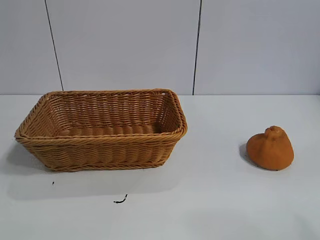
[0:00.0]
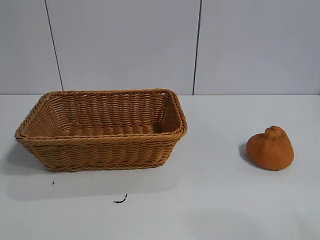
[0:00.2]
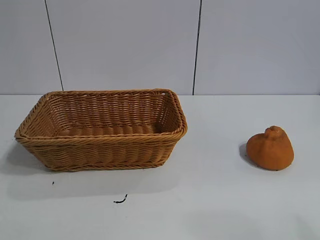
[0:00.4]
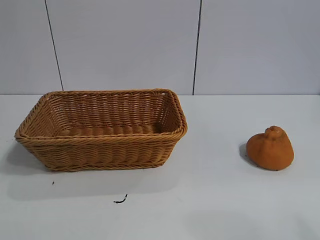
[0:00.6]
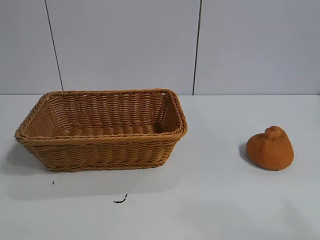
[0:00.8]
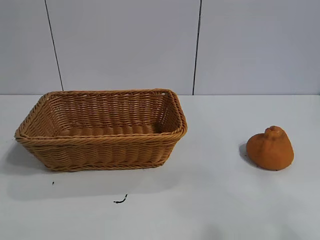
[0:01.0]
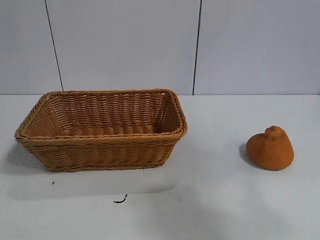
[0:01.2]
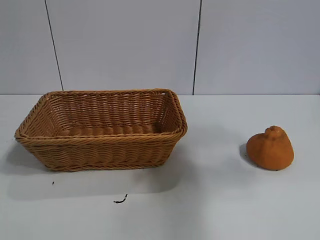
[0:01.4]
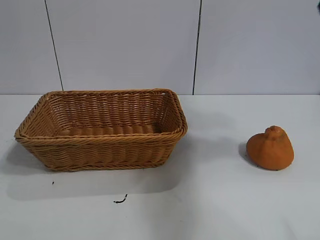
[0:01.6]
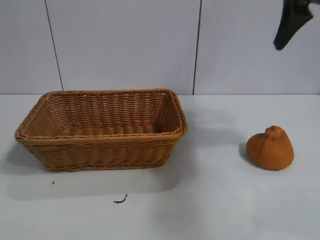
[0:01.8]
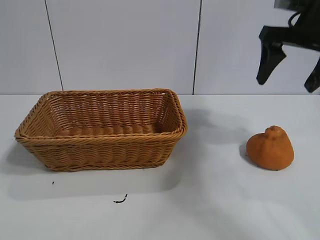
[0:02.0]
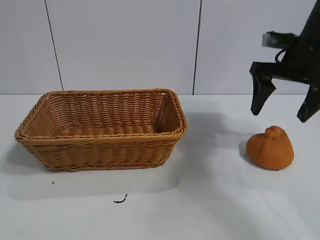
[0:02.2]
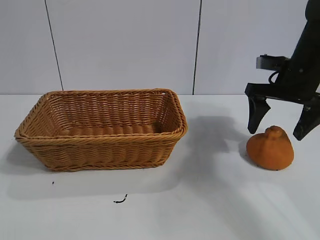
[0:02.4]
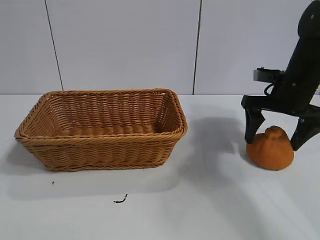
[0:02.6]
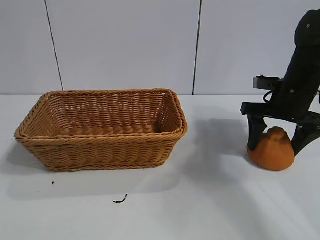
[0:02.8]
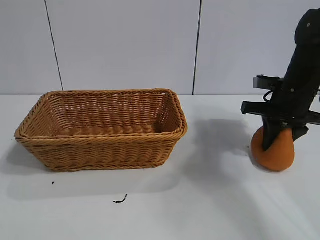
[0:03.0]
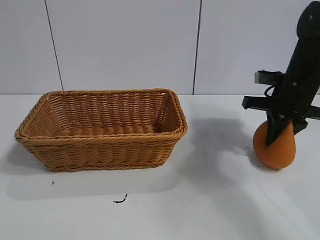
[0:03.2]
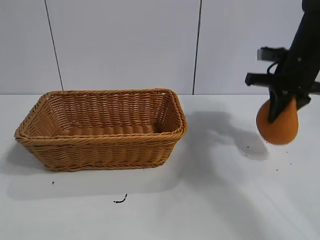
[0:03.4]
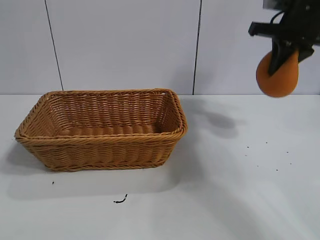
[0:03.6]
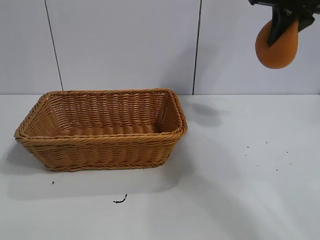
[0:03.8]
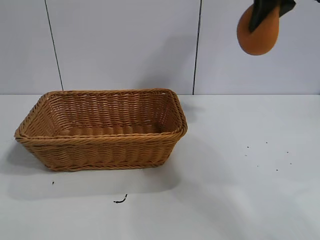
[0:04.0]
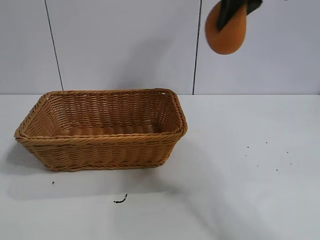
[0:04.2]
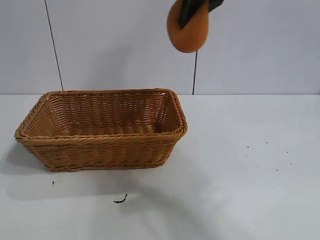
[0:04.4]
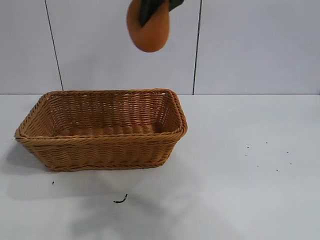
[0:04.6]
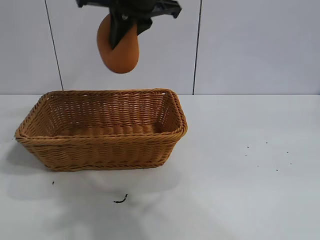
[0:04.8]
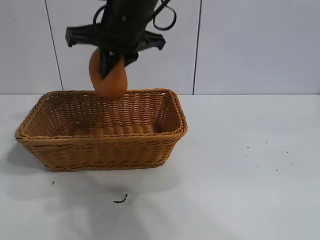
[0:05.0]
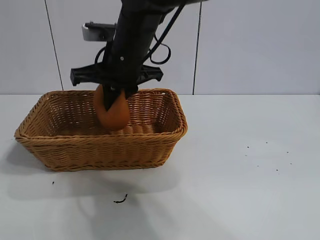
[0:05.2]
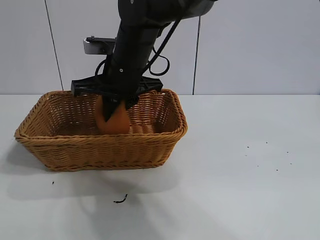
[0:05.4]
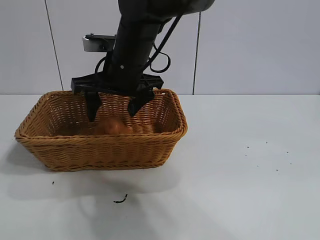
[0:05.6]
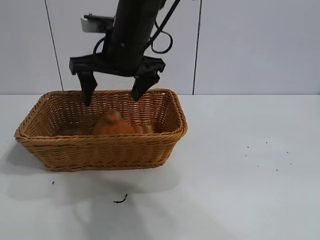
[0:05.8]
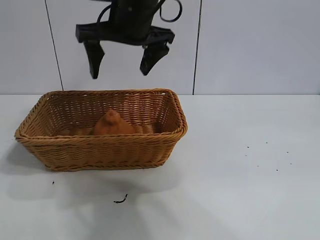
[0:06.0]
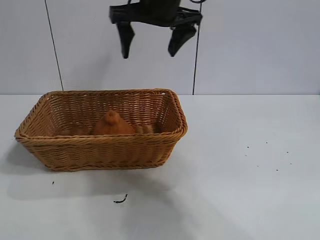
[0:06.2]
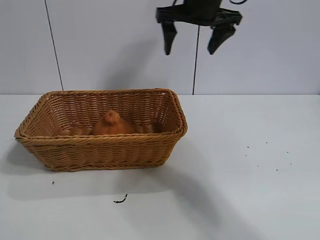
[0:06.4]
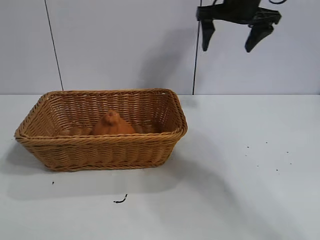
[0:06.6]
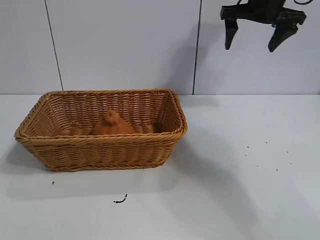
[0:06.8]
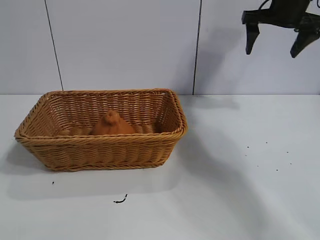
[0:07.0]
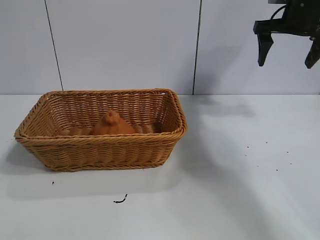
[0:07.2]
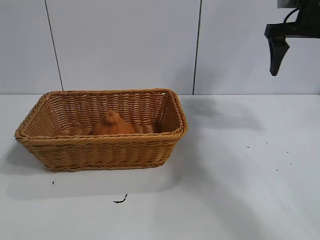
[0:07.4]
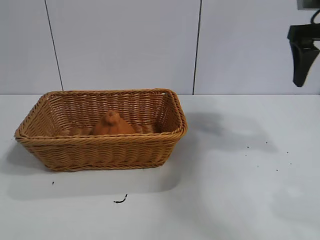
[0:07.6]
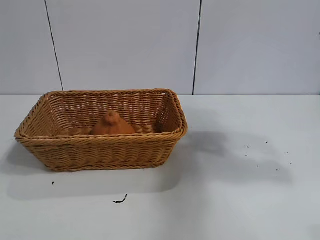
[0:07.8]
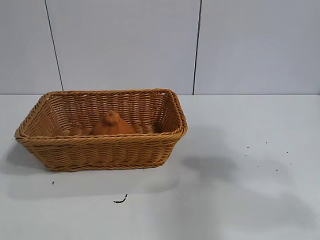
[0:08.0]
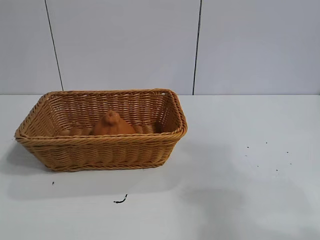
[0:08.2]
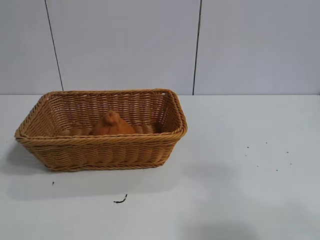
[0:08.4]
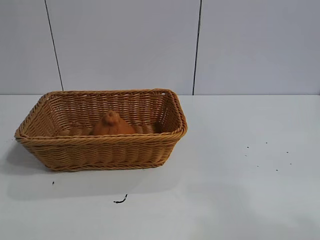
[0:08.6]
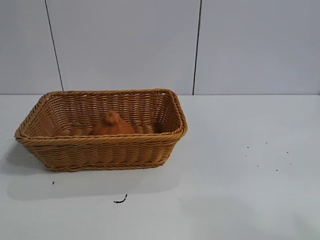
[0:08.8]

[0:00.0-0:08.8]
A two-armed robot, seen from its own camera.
Task of the whole recording: pick up the orange and put it into the basket.
Step, 0:00.8 to 0:03.0: Grasp the orange with right gripper.
Step, 0:03.2 to 0:05.6: Place the orange in the basket with right gripper.

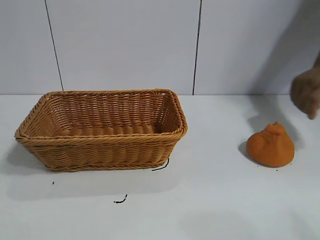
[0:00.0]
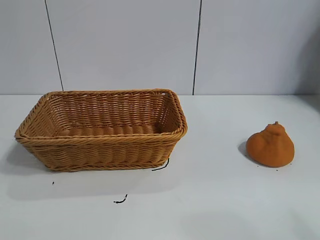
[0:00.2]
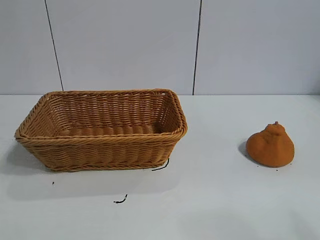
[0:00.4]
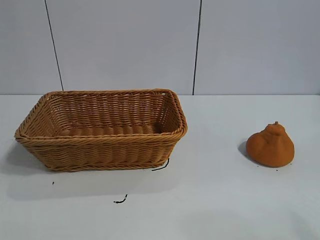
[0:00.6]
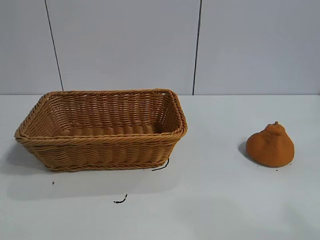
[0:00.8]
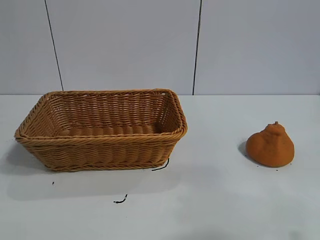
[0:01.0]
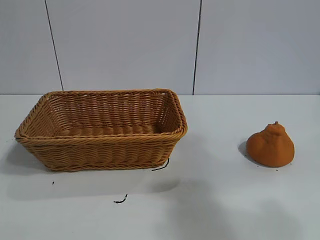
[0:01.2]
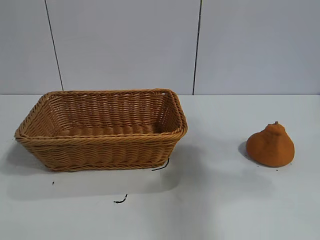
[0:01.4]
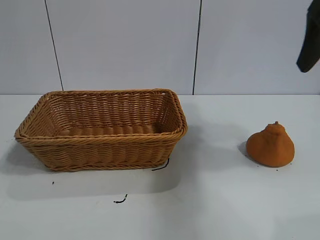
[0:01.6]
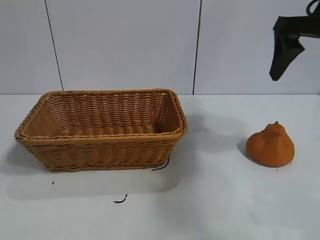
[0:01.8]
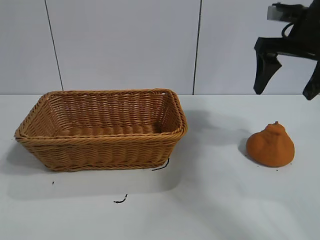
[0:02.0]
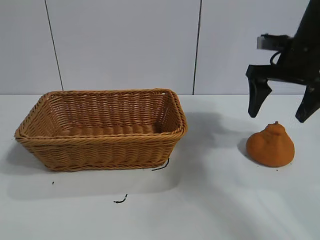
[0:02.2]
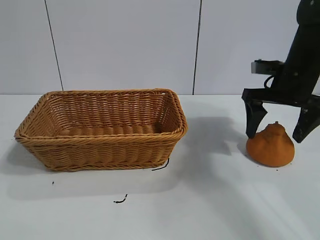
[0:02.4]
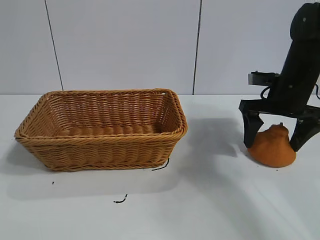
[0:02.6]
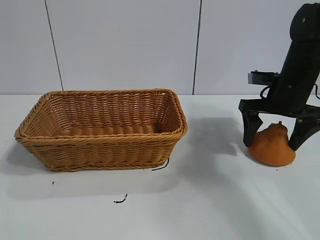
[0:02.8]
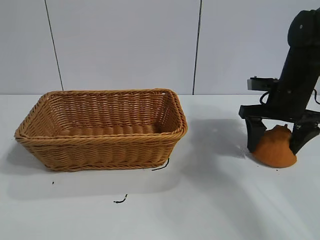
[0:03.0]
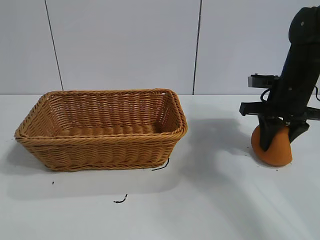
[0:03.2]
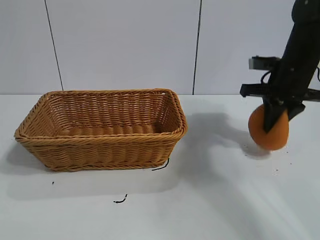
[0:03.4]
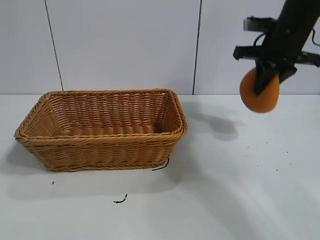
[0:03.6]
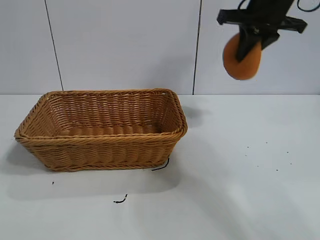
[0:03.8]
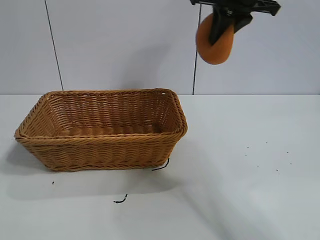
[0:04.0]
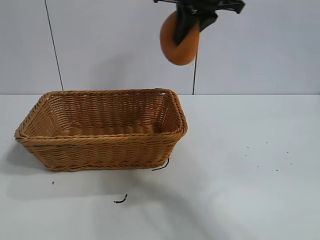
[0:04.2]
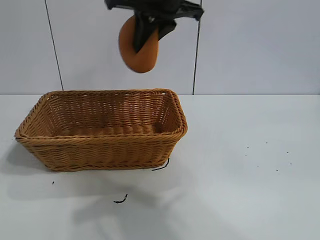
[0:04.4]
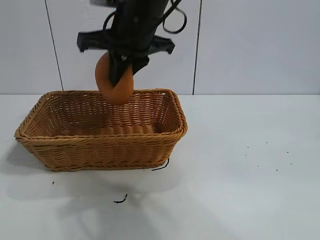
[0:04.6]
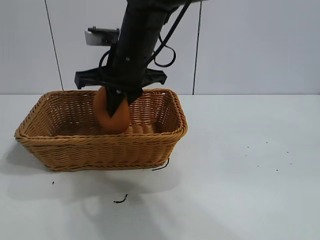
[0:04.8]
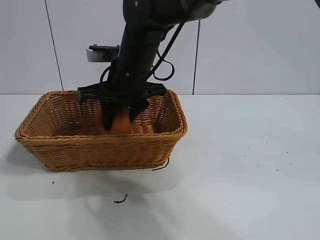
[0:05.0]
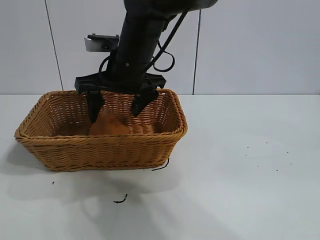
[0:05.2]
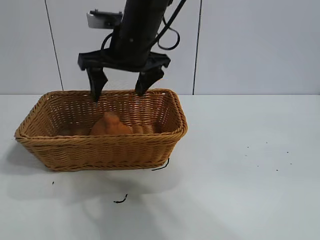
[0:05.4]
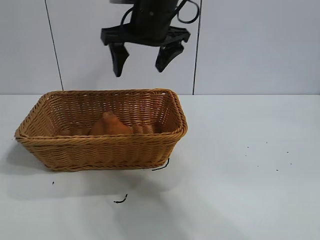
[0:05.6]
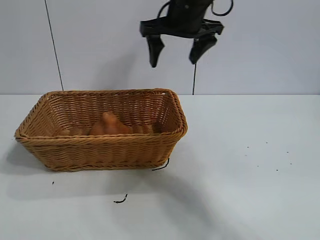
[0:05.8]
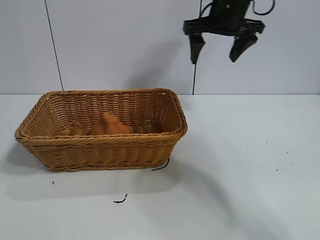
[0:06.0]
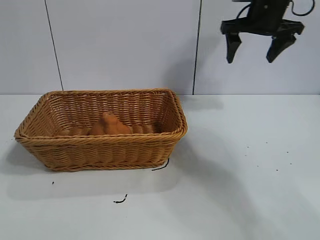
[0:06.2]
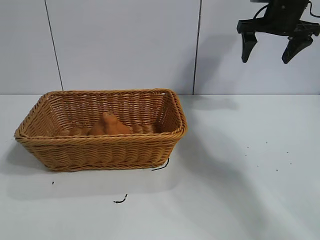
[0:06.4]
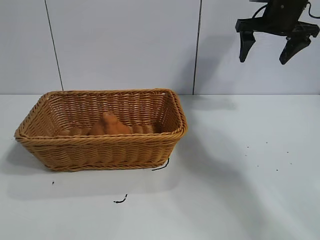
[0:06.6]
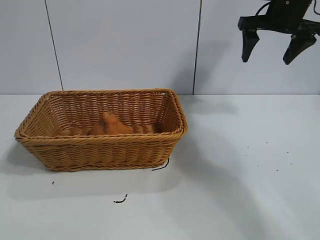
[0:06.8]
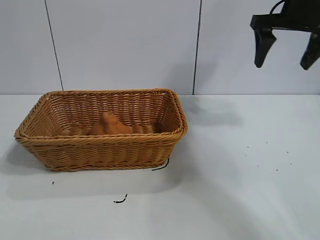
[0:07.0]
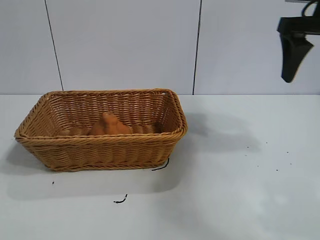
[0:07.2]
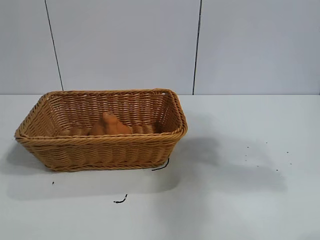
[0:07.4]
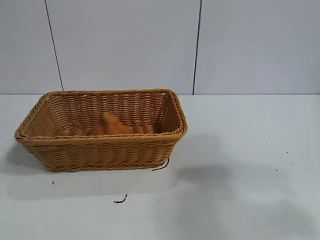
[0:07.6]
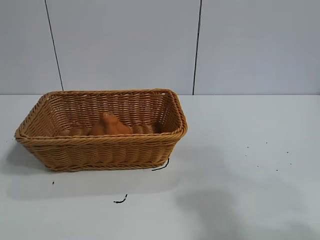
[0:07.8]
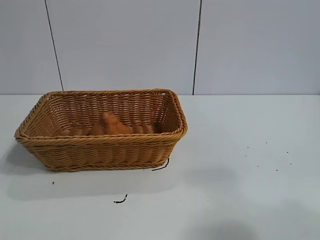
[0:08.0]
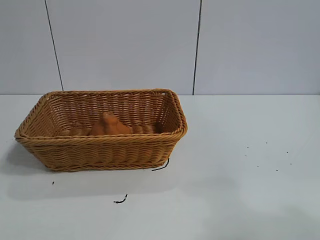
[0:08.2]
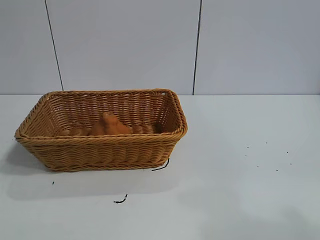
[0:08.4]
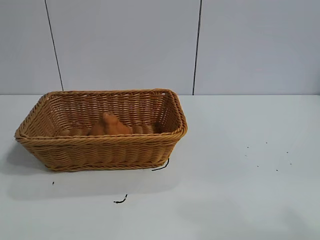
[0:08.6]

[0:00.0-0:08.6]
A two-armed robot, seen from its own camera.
Task of the whole recording: pick up the orange and put it into the basket.
Step, 0:00.8 to 0:03.2: Grasp the orange with right gripper.
Step, 0:03.4 to 0:05.2: Place the orange in the basket with right gripper.

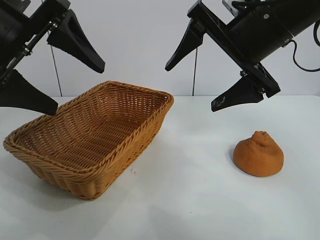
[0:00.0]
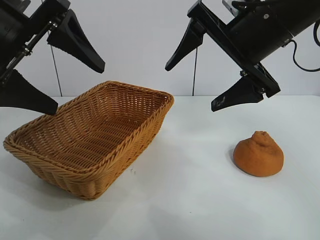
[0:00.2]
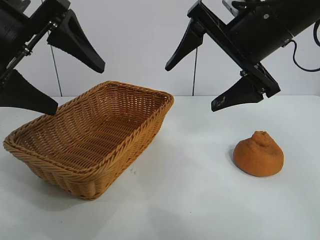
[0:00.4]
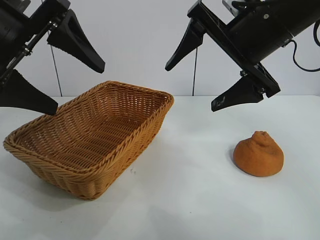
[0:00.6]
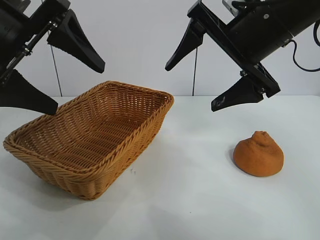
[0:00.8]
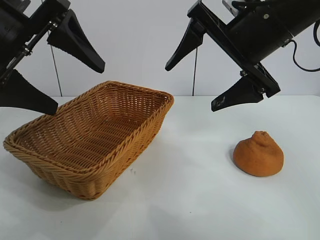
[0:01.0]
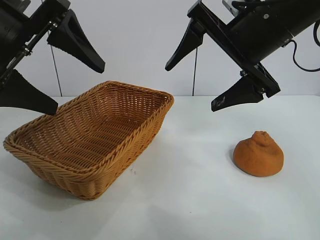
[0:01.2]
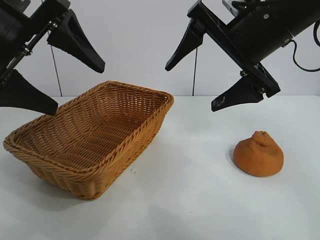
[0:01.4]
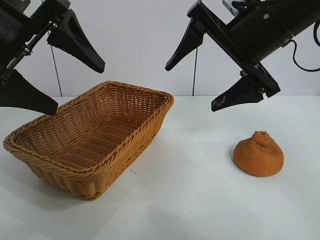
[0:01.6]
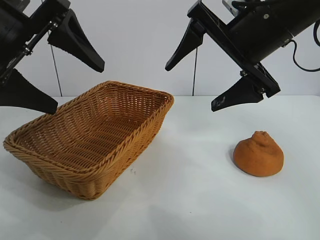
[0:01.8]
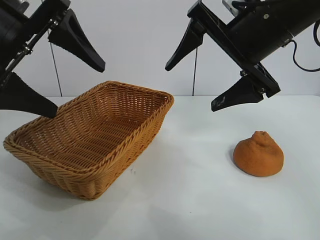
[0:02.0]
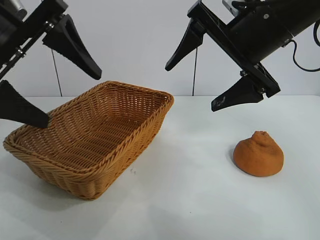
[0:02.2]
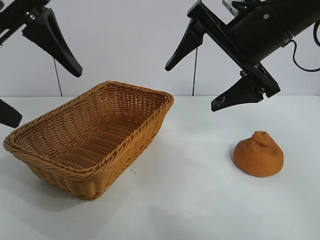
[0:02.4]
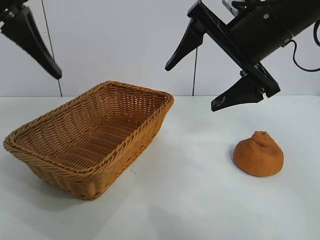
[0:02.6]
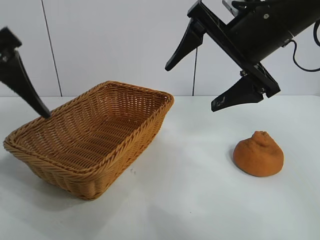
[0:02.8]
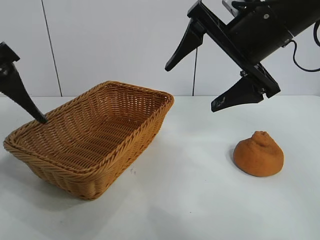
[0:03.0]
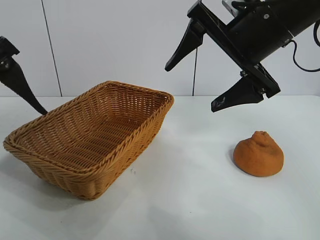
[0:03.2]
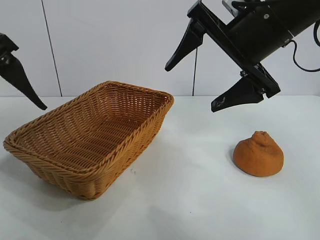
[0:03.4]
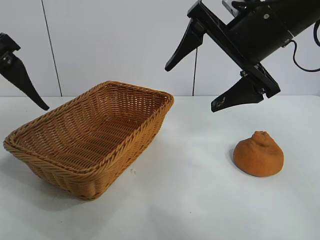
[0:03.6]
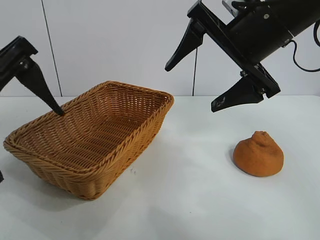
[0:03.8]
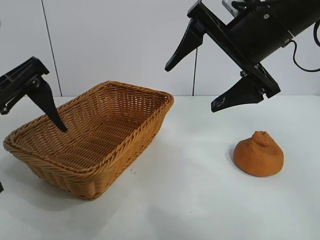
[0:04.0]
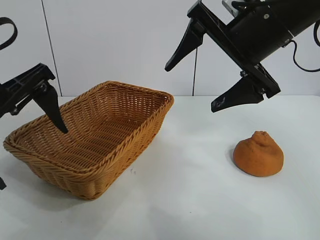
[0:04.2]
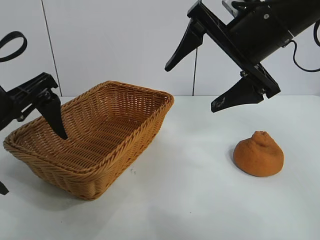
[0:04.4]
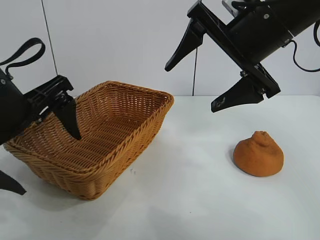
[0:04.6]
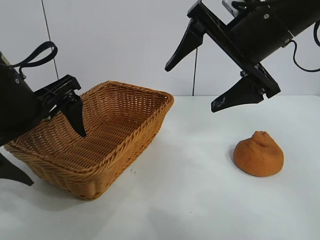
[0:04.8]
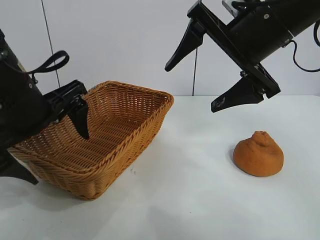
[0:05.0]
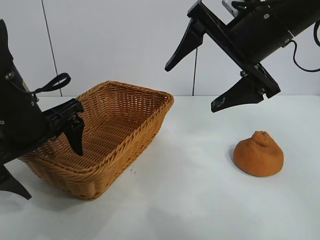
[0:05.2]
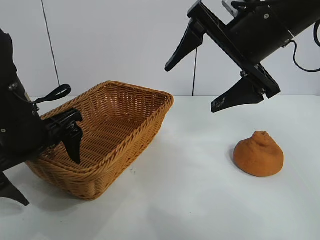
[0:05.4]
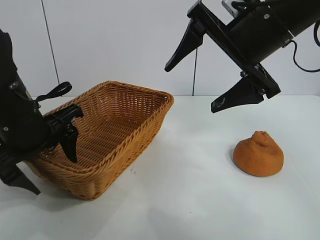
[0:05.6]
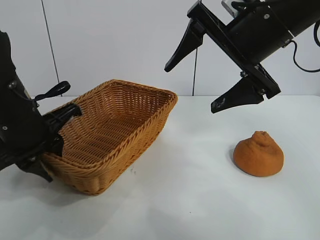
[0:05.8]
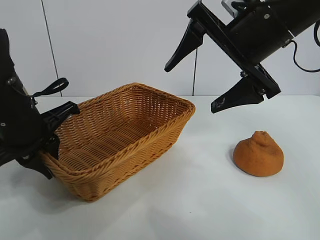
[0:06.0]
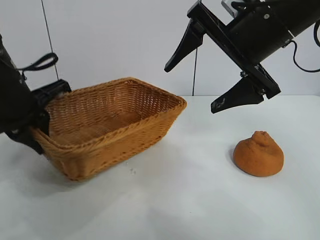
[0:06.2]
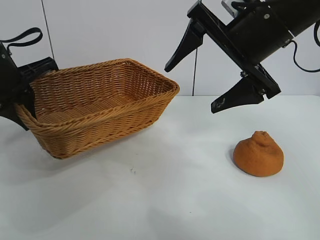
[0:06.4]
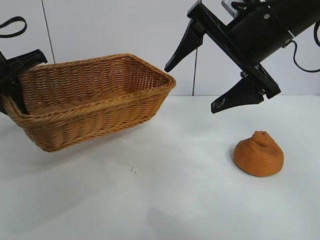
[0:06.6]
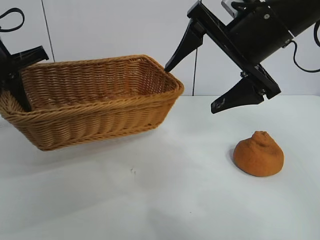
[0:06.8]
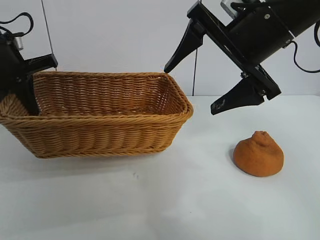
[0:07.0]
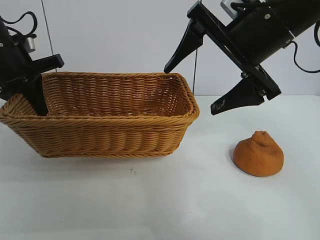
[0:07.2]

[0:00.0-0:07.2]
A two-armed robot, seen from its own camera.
Task of the whole recording: pick up the orange and put it into the basket.
Step, 0:01.8 to 0:05.8: Grasp the basket with left gripper.
